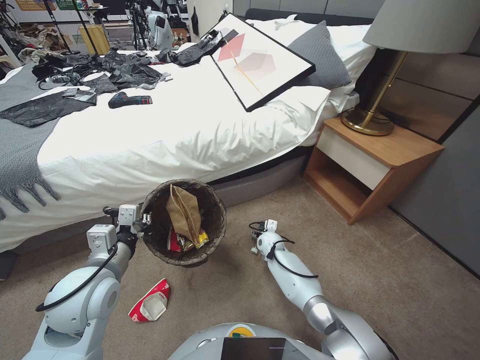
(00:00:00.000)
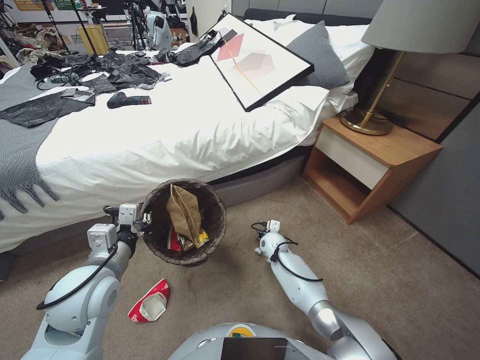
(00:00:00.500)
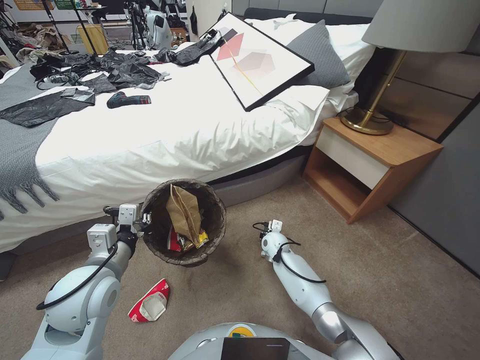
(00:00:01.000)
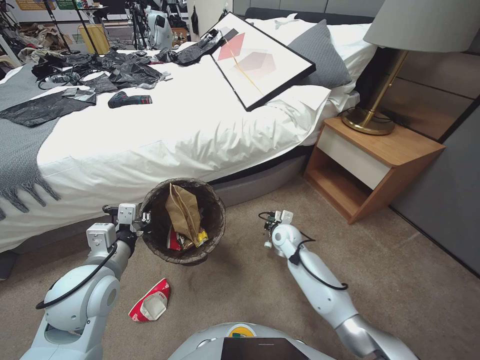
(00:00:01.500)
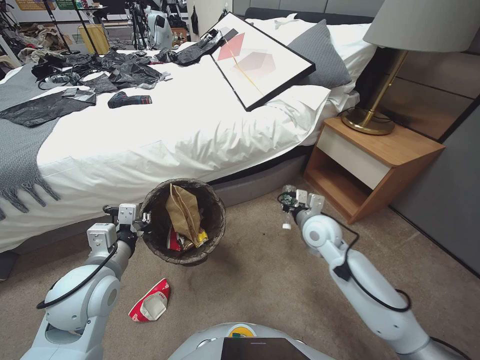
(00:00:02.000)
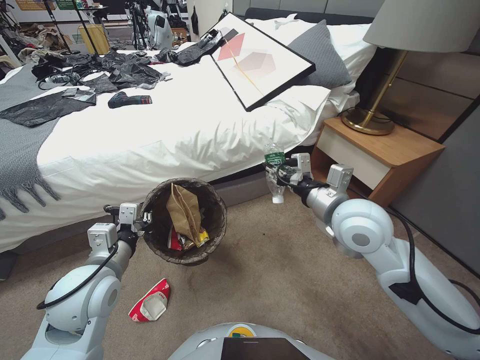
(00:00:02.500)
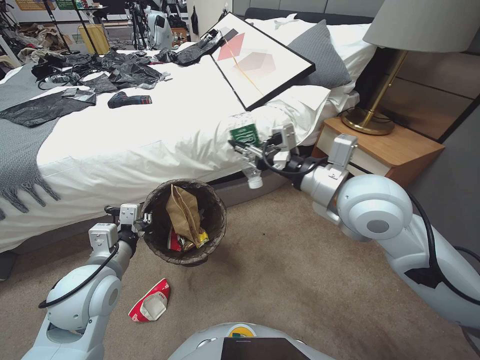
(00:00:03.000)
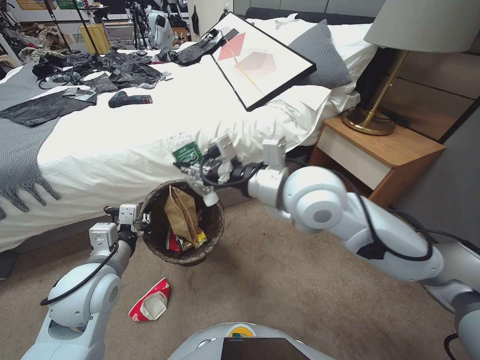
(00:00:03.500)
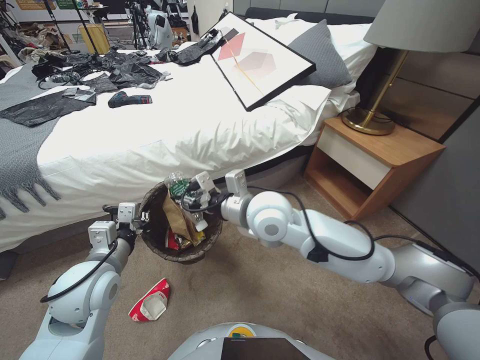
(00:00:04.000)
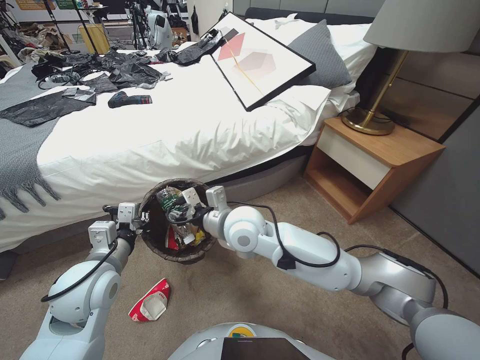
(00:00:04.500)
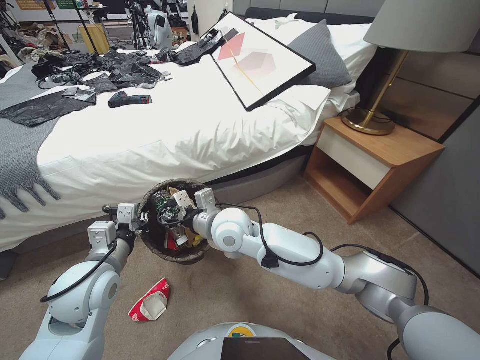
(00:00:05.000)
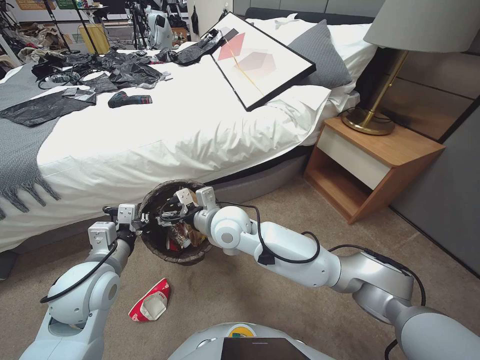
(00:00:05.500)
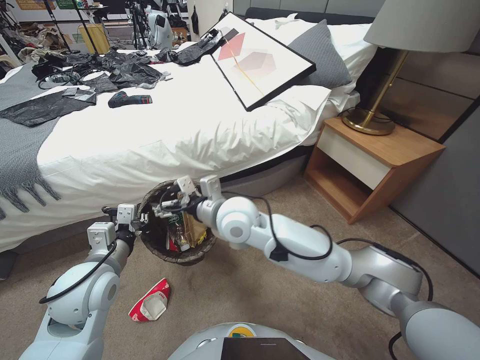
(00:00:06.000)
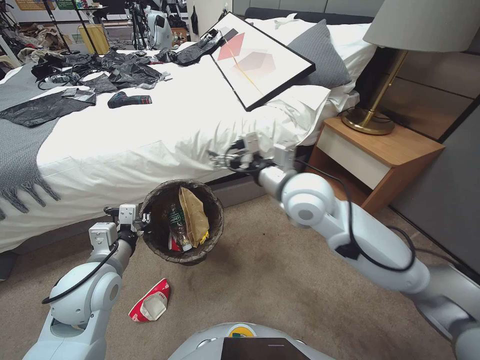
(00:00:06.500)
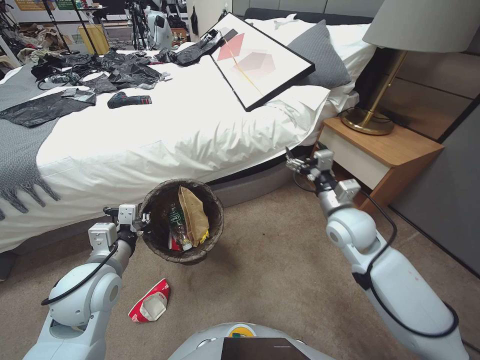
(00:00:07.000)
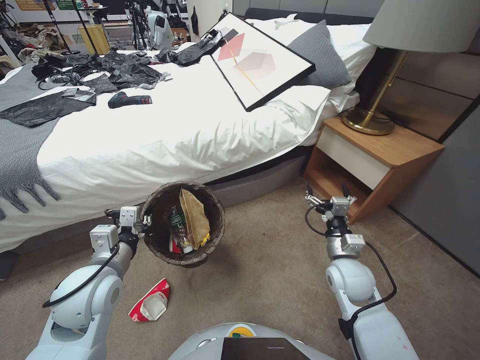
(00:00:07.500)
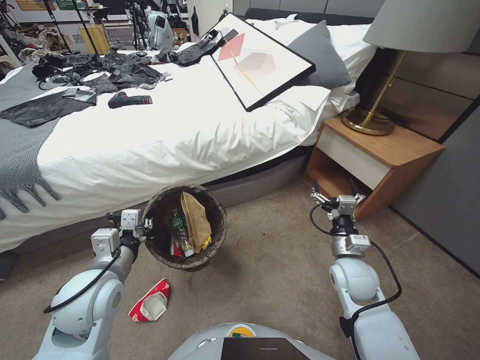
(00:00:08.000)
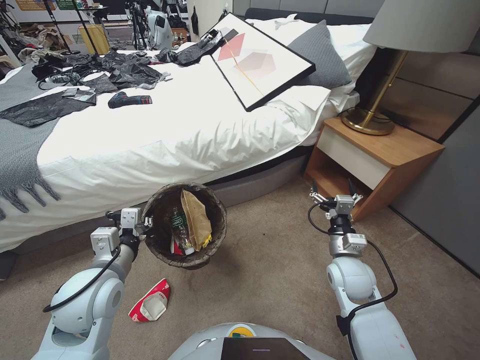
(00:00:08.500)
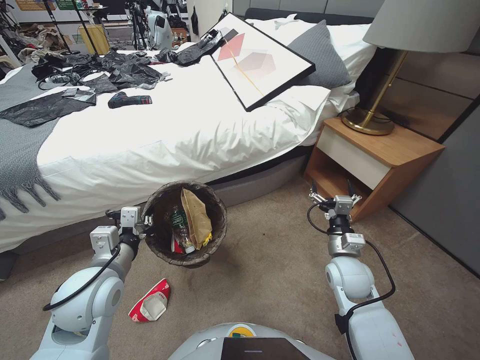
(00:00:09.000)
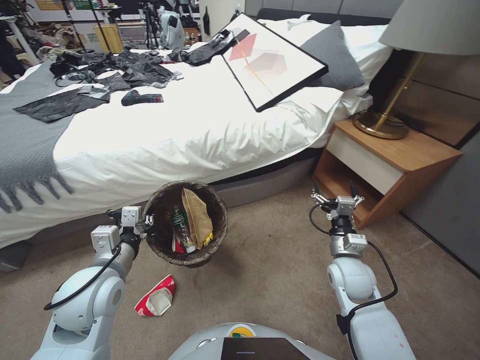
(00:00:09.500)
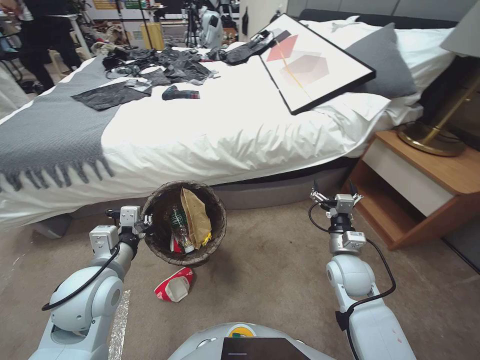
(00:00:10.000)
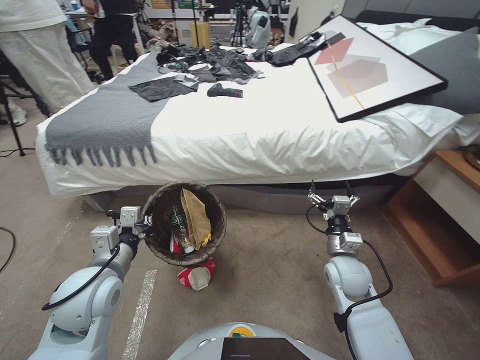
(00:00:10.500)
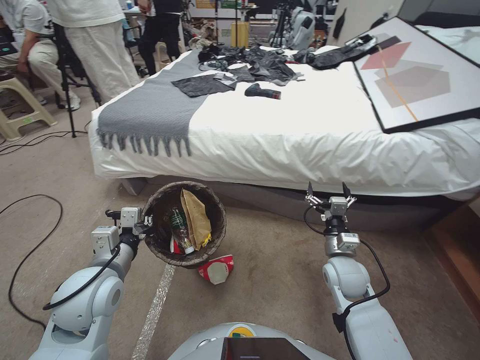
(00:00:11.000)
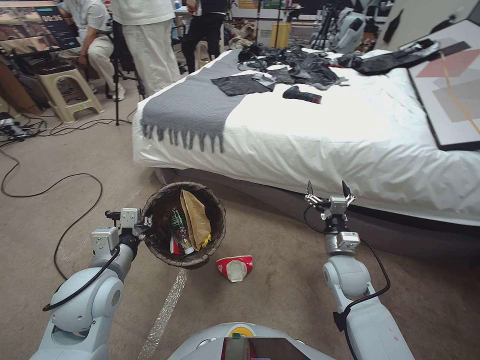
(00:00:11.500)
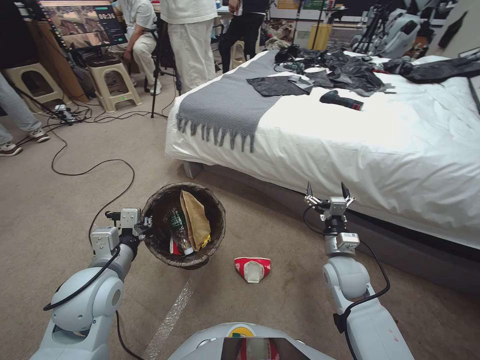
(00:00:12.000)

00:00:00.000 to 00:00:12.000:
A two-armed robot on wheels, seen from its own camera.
Task of the whole recording: Pick up the trash bin, then pick up the garbage from the floor and place it into the trash bin.
00:00:00.000 to 00:00:02.000: The right gripper shifts some 20 cm upward, and closes up.
00:00:02.000 to 00:00:04.000: The right gripper goes about 25 cm upward and to the left.
00:00:04.000 to 00:00:06.000: The right gripper travels to the left and downward by roughly 10 cm, and opens its fingers.
00:00:06.000 to 00:00:08.000: The right gripper heads to the right and downward, covering about 35 cm.

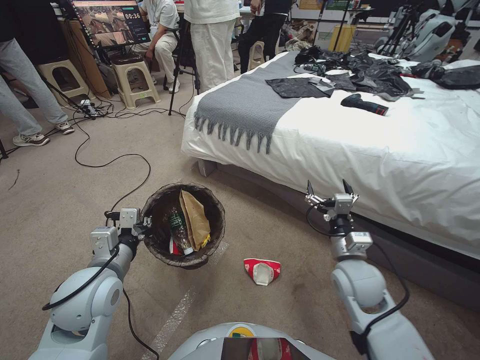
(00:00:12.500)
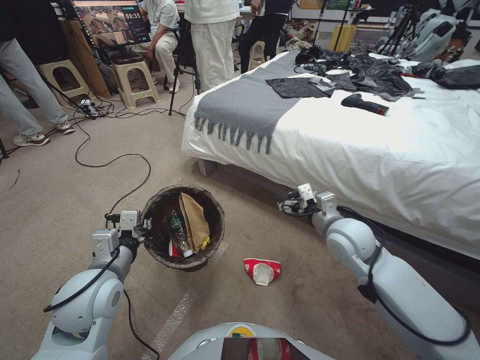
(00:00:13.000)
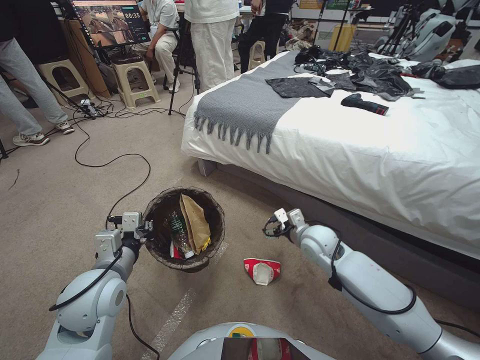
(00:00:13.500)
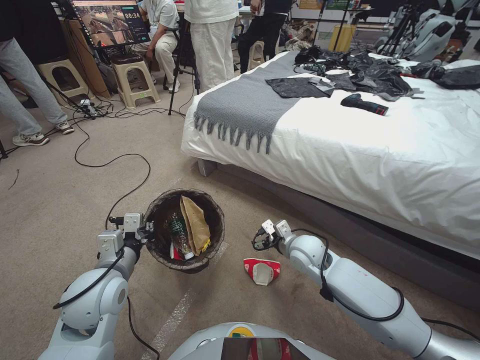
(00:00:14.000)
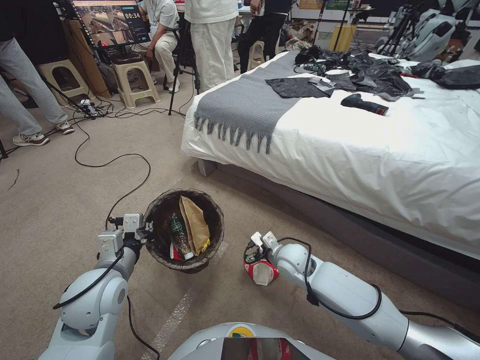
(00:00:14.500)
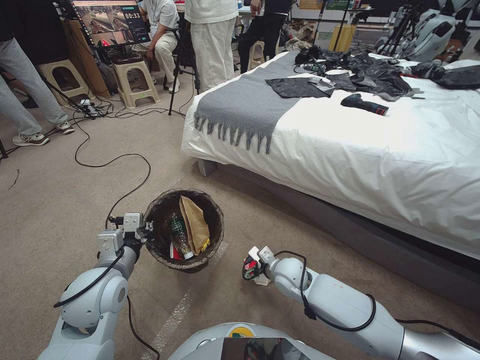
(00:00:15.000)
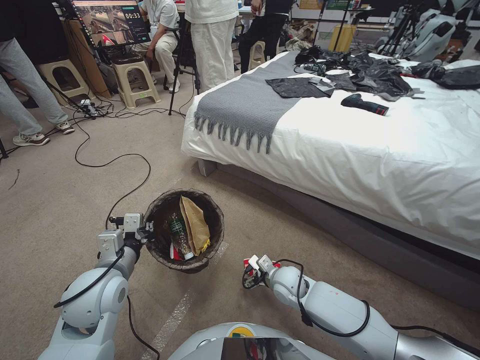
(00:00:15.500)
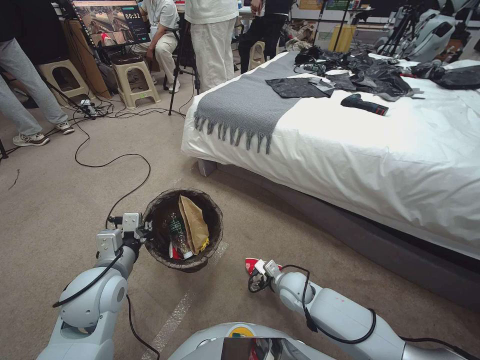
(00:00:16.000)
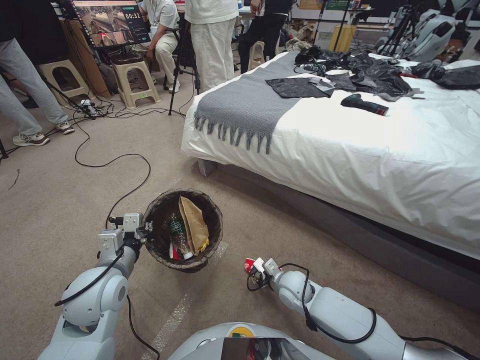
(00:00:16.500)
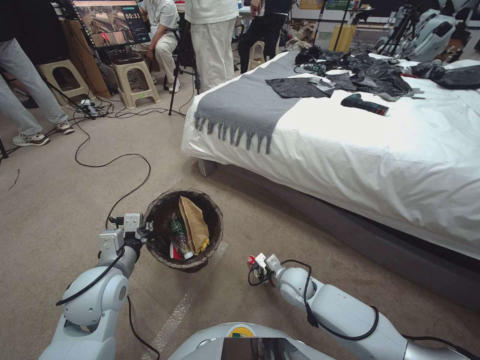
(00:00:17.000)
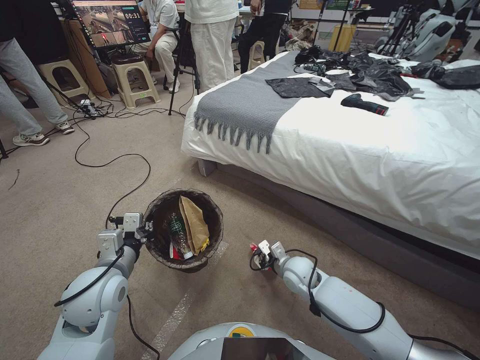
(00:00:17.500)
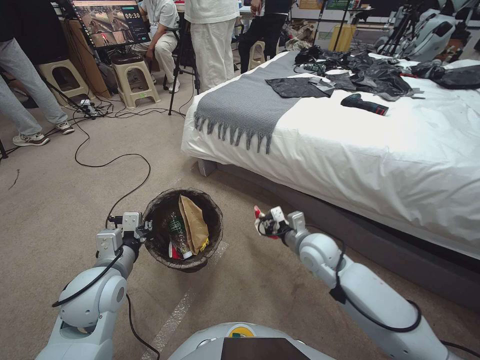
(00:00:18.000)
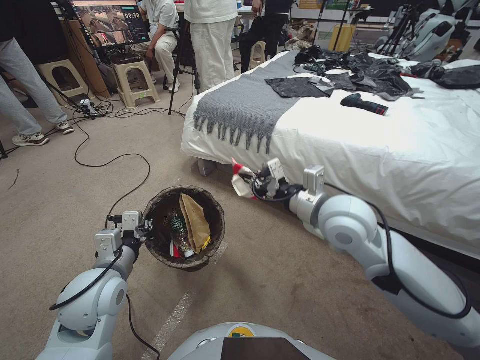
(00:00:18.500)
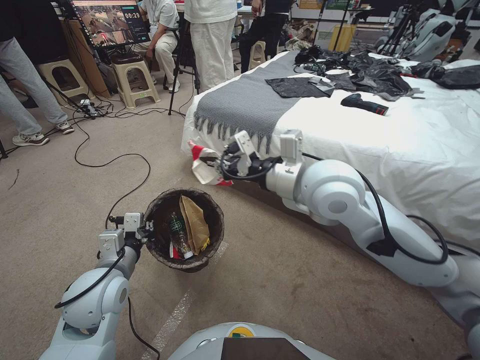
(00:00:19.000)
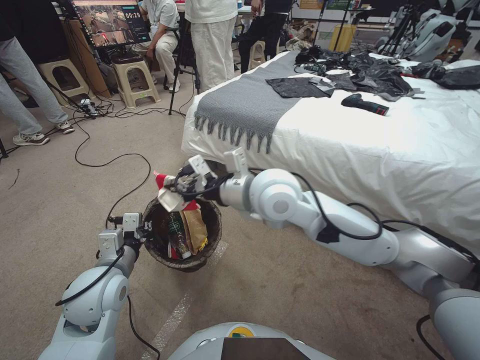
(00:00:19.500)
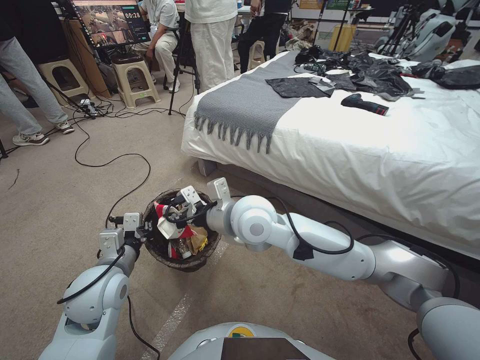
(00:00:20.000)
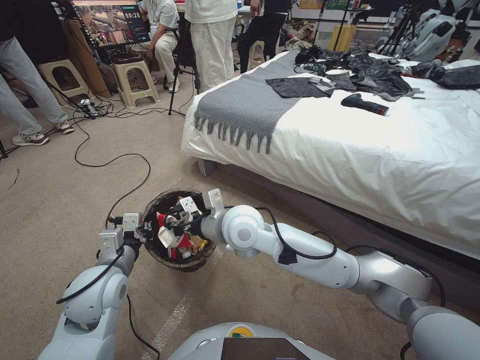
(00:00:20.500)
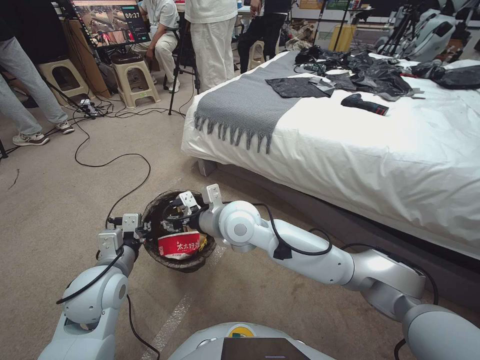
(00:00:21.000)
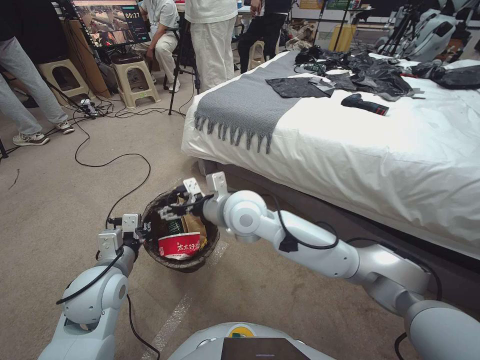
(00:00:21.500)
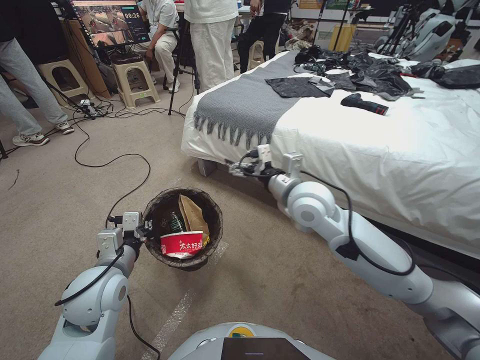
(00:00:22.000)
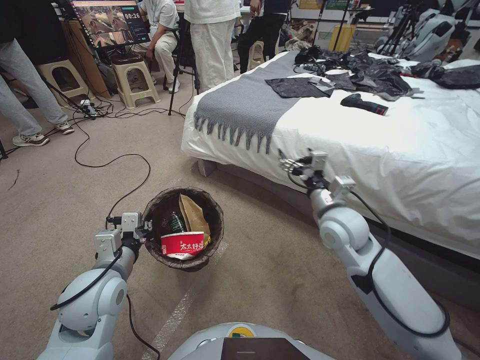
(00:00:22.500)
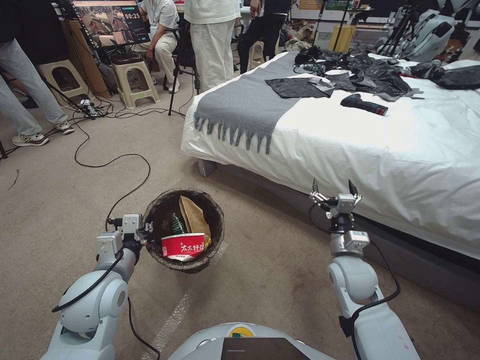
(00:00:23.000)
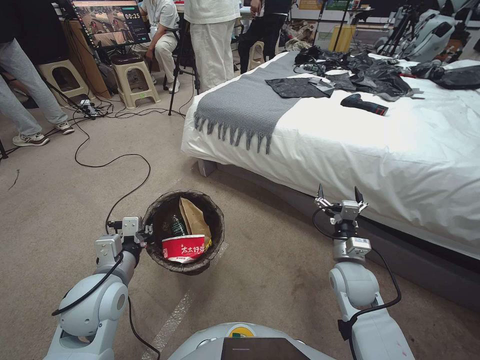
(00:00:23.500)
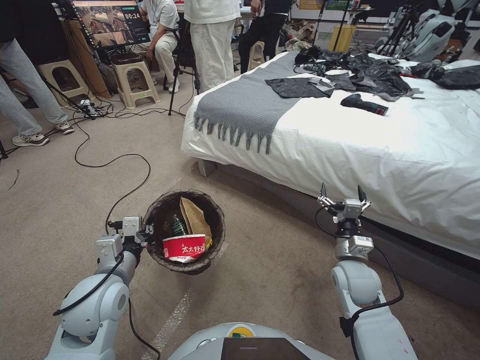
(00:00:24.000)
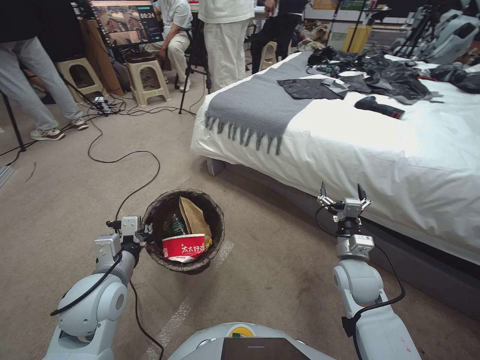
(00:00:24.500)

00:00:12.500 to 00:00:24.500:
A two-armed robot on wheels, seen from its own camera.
Task of the whole recording: Pick up the trash bin, then pick up the garbage from the floor and place it into the trash bin.
00:00:12.500 to 00:00:14.500: The right gripper travels to the left, forward and downward by approximately 15 cm.
00:00:14.500 to 00:00:16.500: The right gripper travels downward and backward by about 10 cm, and closes its fingers.
00:00:16.500 to 00:00:18.500: The right gripper heads upward, covering approximately 30 cm, and closes.
00:00:18.500 to 00:00:20.500: The right gripper goes about 20 cm to the left.
00:00:20.500 to 00:00:22.500: The right gripper heads to the right, covering about 20 cm, and opens.
00:00:22.500 to 00:00:24.500: The right gripper is displaced downward, backward and to the right by roughly 15 cm.

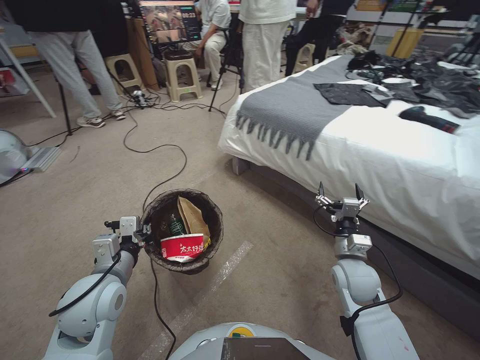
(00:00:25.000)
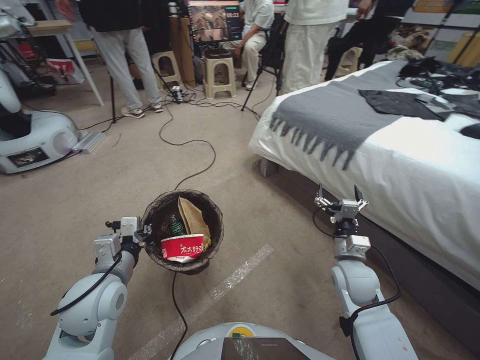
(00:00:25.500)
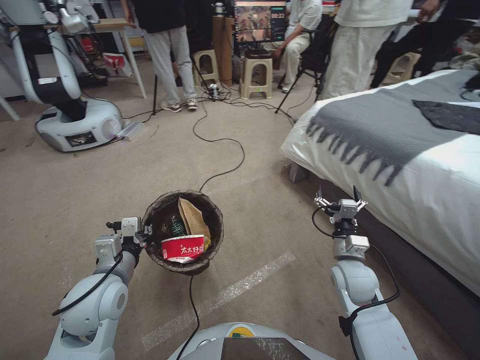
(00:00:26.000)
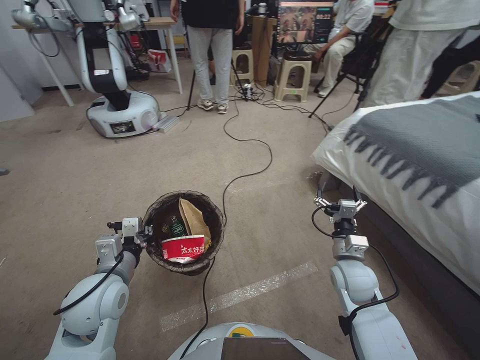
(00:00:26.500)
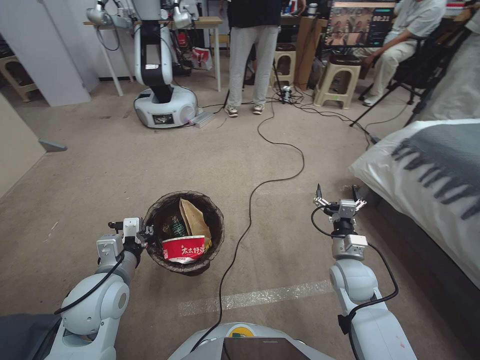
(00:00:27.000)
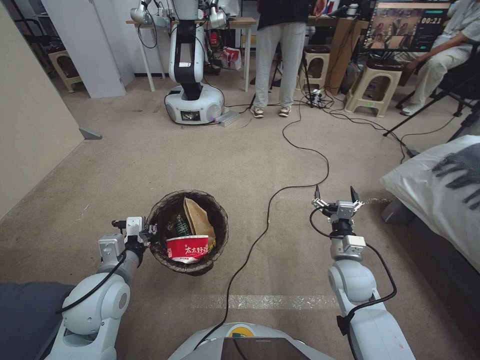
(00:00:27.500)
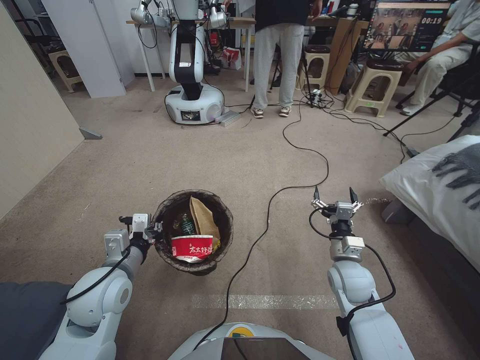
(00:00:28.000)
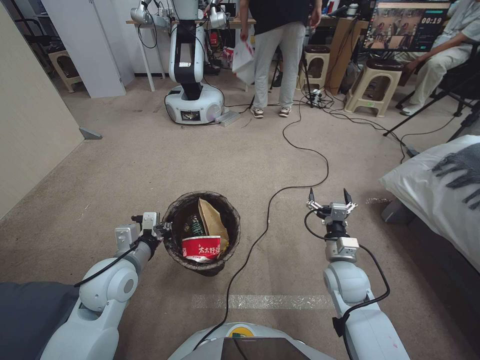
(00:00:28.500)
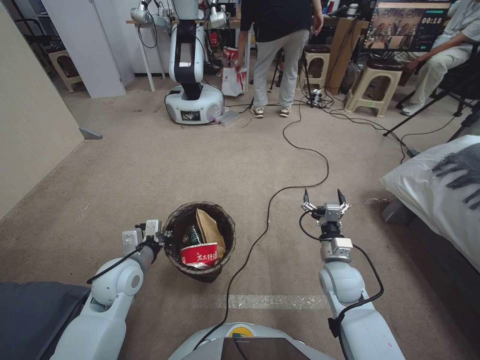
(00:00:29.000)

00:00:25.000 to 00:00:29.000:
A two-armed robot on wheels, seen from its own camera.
Task of the whole recording: Pick up the trash bin, then pick up the garbage from the floor and place it into the trash bin.
00:00:27.000 to 00:00:29.000: The left gripper travels downward and forward by approximately 5 cm.
